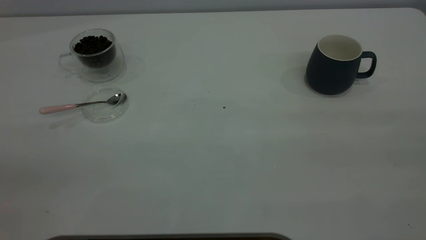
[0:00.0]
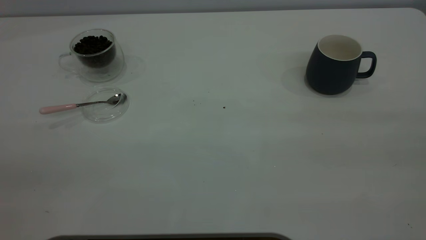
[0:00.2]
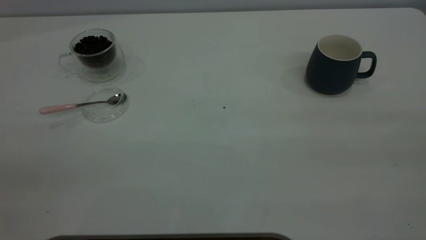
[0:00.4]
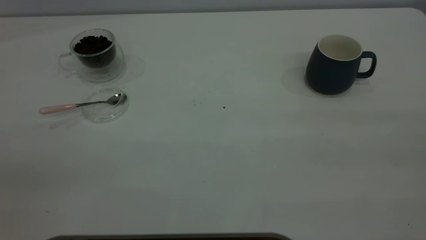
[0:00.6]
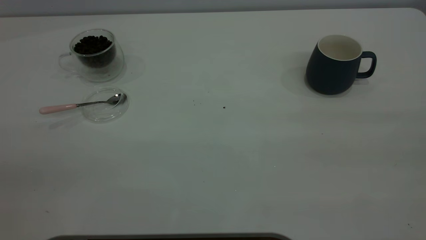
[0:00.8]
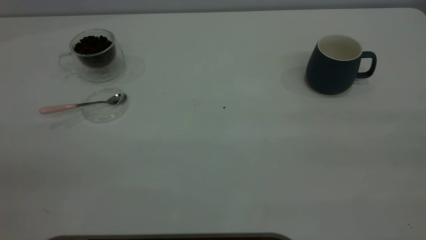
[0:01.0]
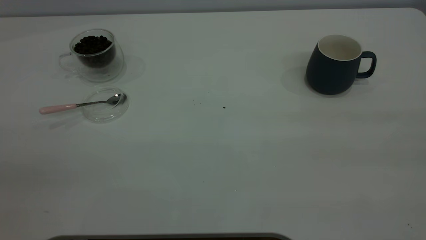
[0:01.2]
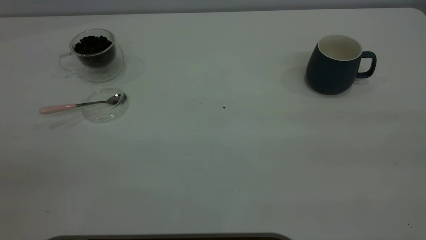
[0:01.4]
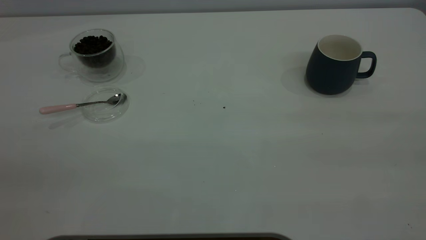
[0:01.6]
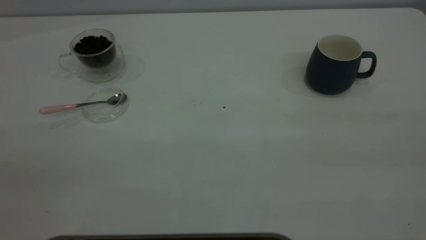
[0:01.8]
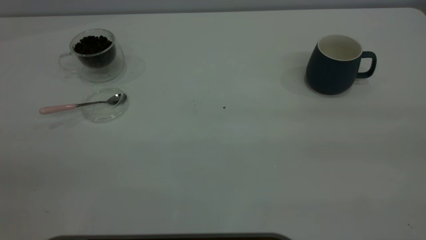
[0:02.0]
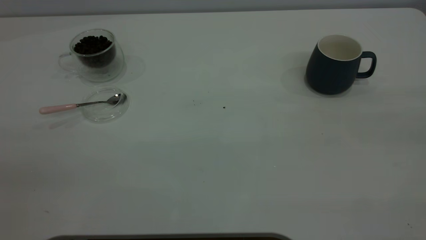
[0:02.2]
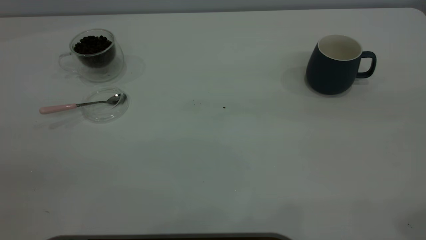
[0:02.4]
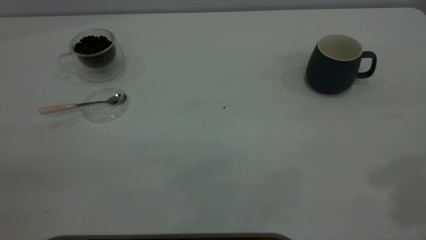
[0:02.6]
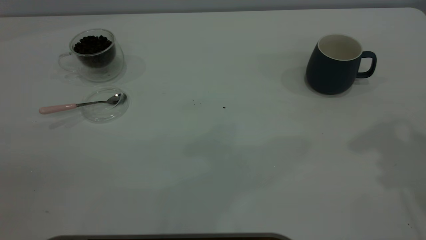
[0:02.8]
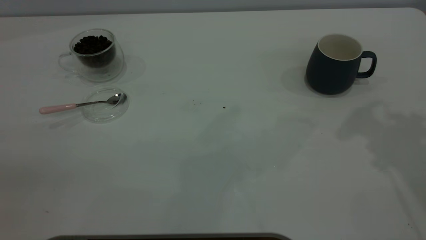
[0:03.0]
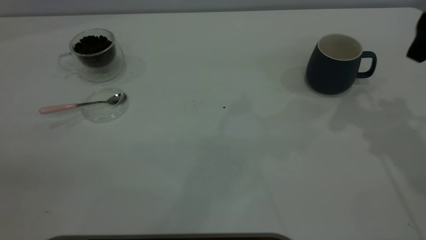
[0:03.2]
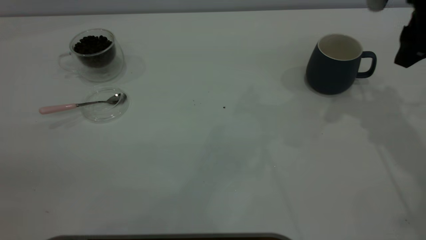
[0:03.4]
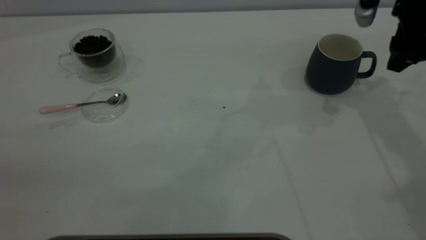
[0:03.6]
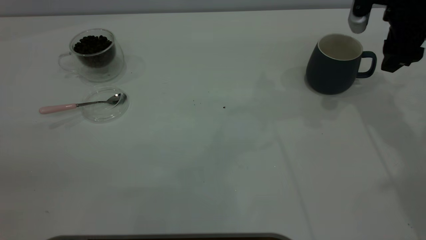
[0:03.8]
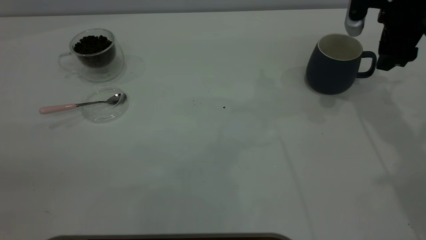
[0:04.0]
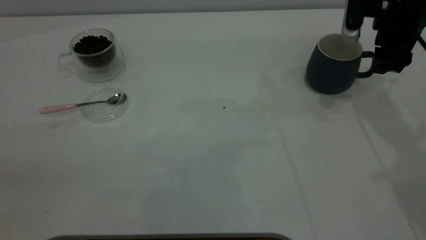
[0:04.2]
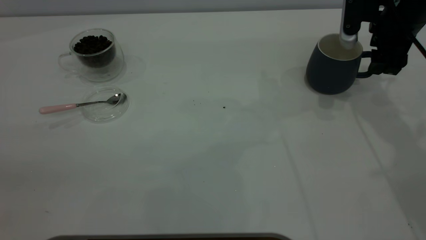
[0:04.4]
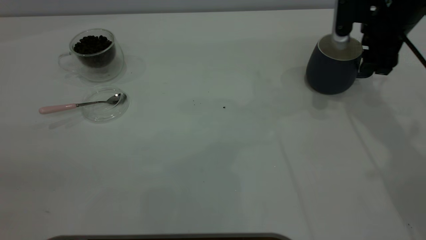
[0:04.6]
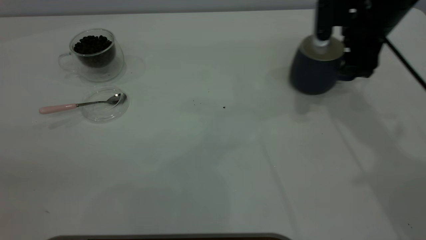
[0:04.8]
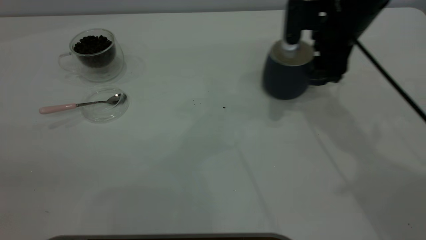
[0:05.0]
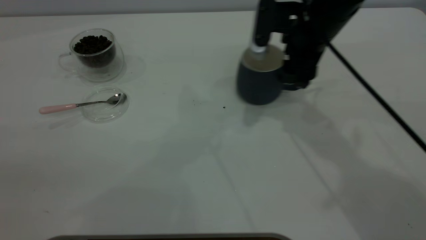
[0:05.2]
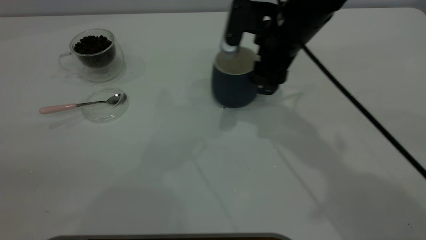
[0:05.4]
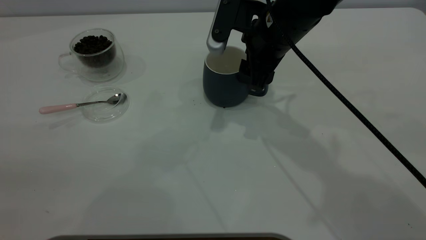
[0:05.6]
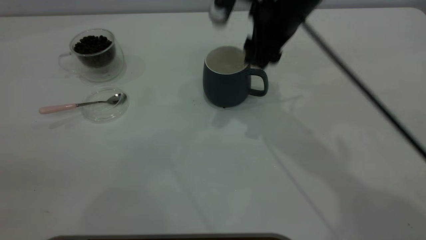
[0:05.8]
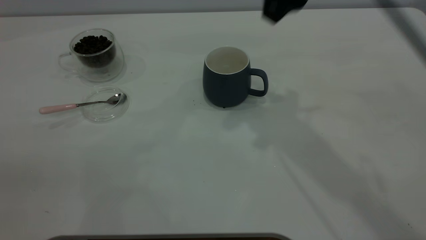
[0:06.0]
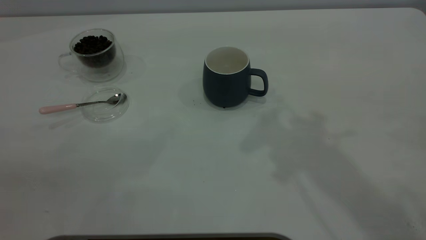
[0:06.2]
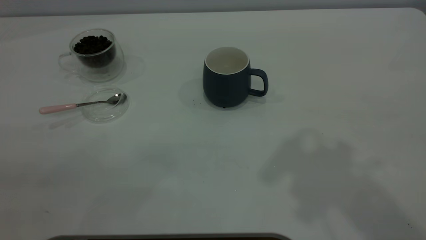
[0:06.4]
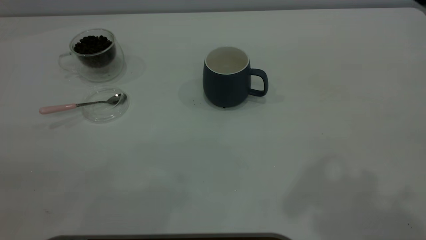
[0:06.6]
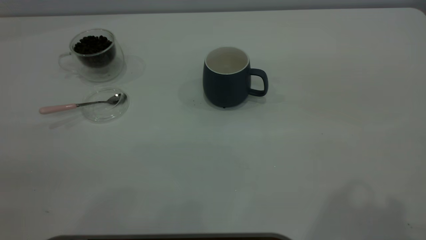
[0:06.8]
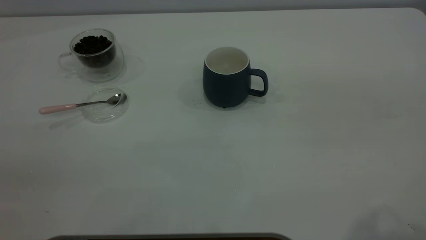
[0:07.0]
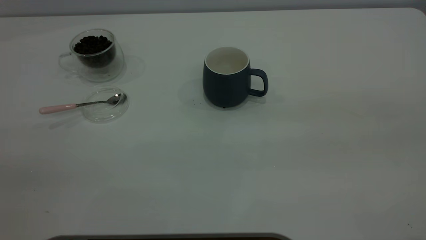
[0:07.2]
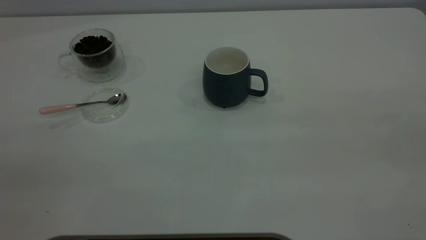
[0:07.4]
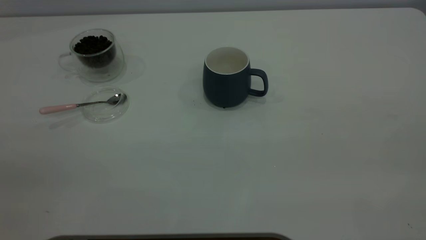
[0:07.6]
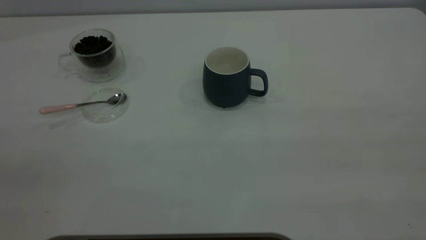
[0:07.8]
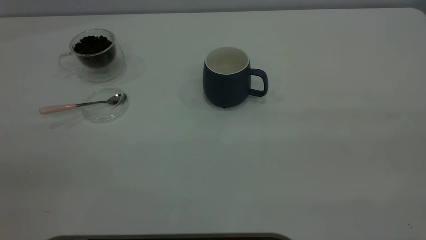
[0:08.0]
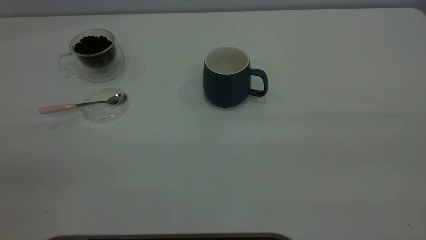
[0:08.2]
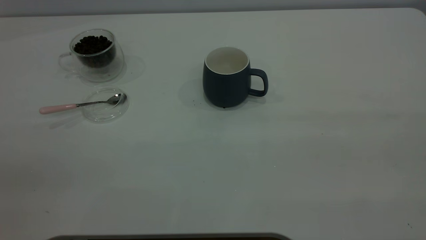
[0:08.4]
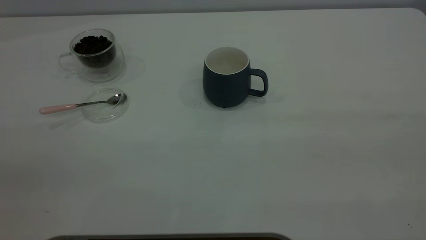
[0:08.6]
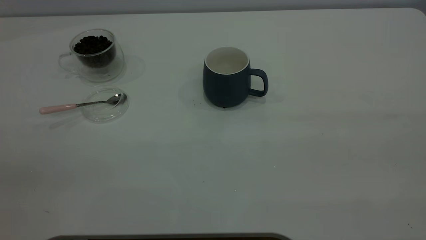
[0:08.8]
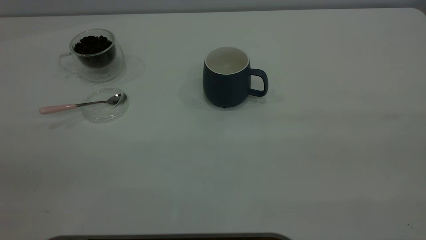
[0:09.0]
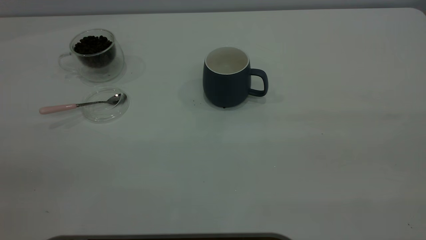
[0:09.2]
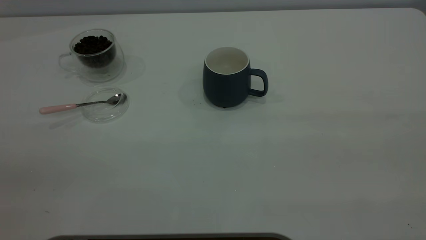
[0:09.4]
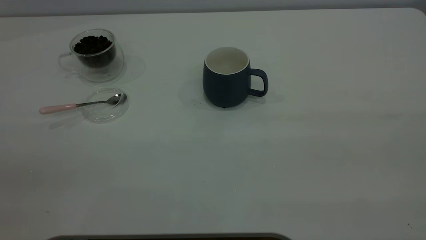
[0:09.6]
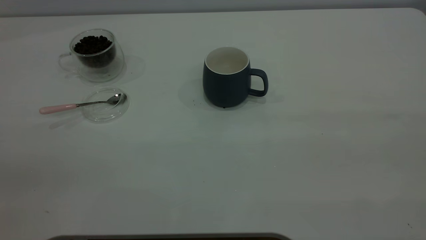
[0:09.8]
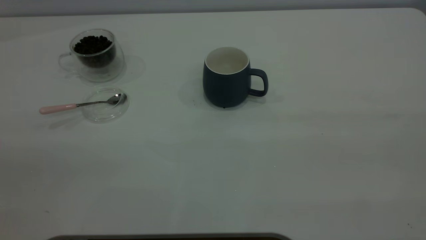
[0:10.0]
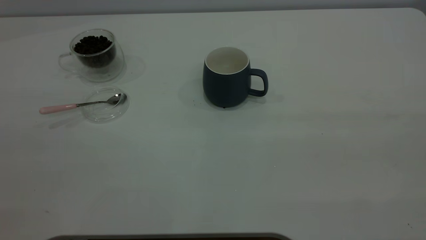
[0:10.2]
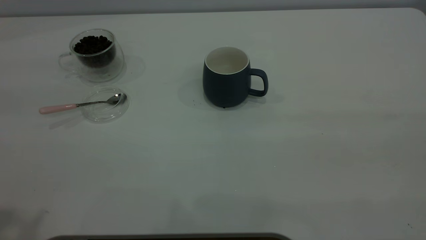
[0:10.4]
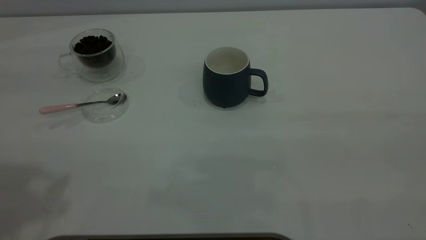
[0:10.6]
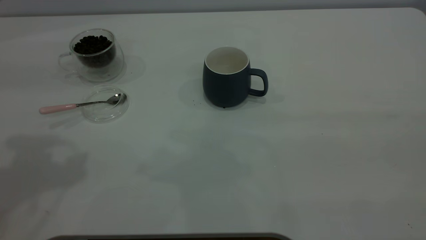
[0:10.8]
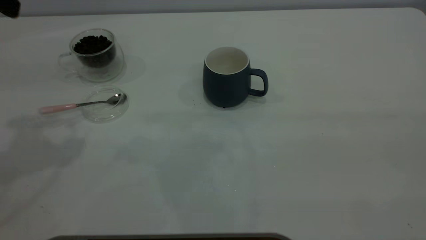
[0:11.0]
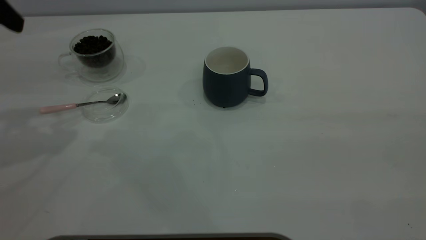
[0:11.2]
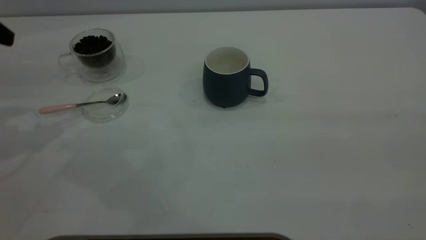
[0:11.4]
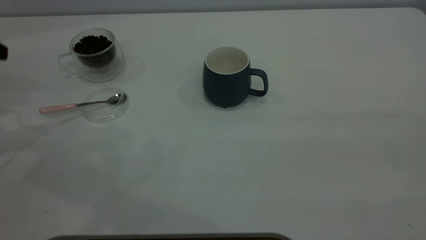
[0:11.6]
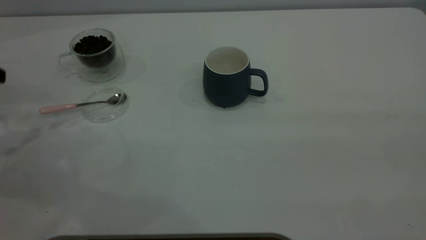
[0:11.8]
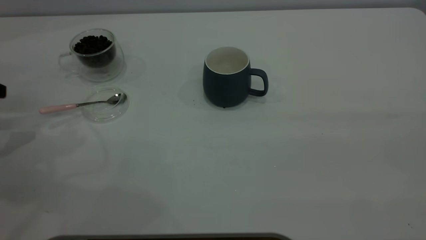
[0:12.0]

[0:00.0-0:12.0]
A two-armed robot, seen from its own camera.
Task of the whole recording: the right gripper place the grey cup in the center of the table, the left gripper take the pink spoon from the cup lid and scoop out the coffee beans from the coffee cup and put them into the grey cup, the left gripper put the spoon back into the cup lid.
Step, 0:00.0 to 0:05.8: Move the cup to the center of view.
0:00.0 to 0:01.6: Neither gripper changes place.
0:03.0 to 0:04.4: The right gripper shifts approximately 20 cm downward and forward.
0:04.4 to 0:06.0: The right gripper moves upward, to the left and backward, roughly 25 cm.
0:06.0 to 0:07.6: The right gripper shifts approximately 35 cm backward and to the right.

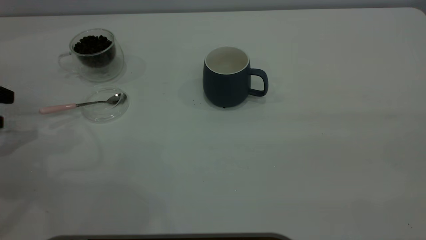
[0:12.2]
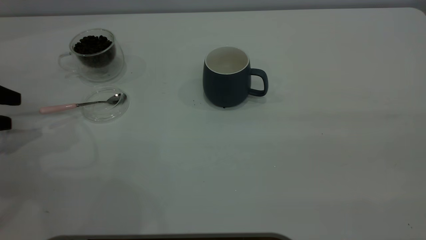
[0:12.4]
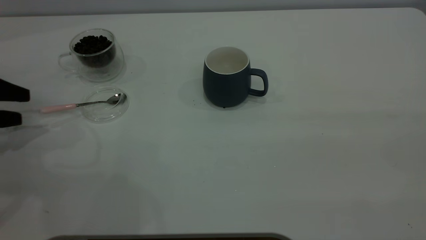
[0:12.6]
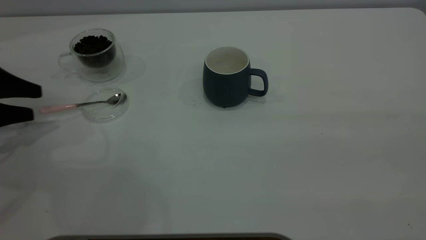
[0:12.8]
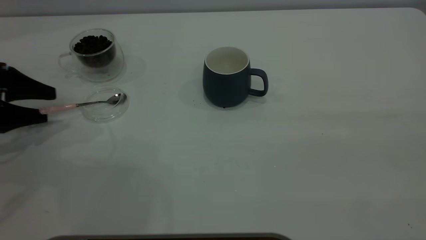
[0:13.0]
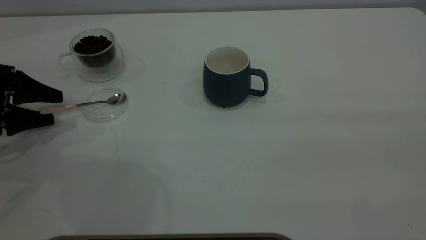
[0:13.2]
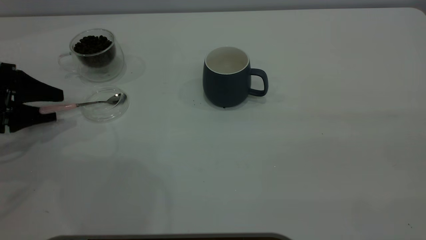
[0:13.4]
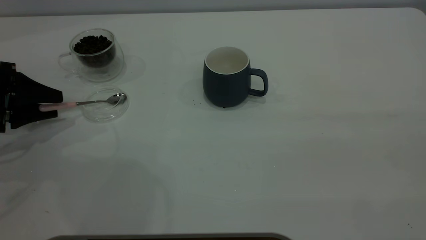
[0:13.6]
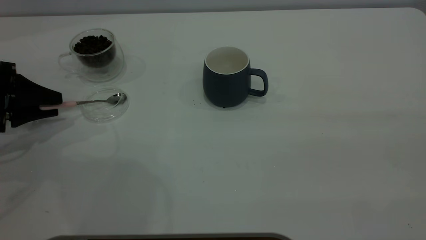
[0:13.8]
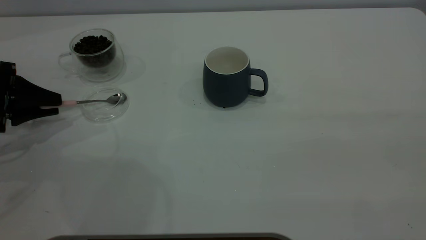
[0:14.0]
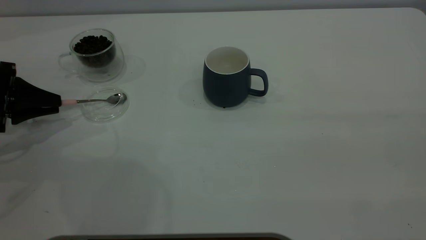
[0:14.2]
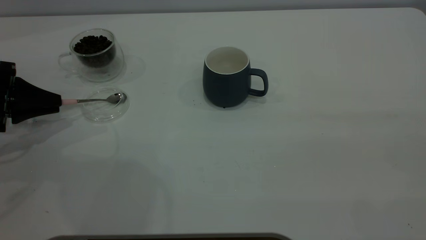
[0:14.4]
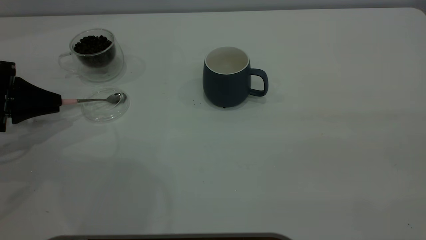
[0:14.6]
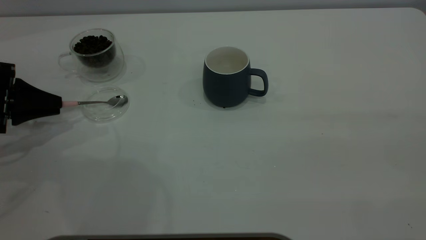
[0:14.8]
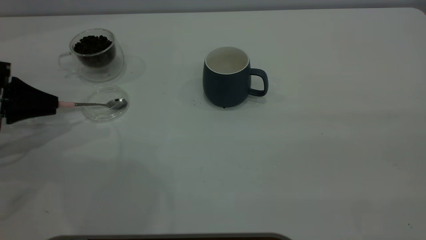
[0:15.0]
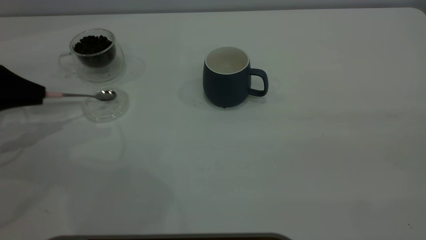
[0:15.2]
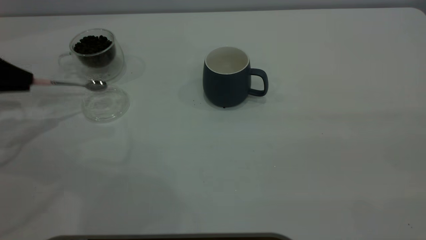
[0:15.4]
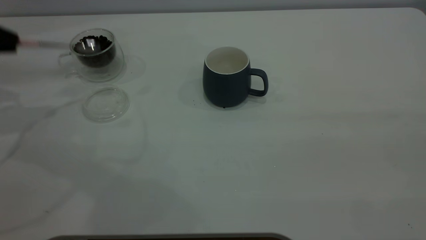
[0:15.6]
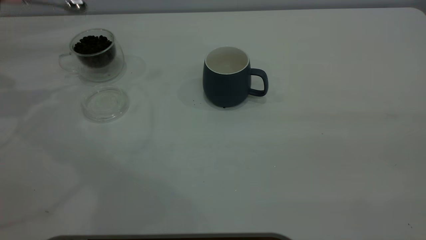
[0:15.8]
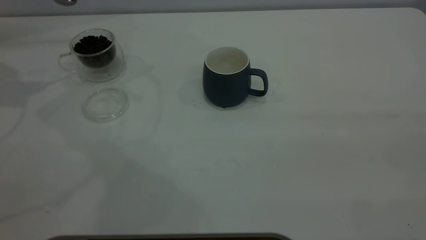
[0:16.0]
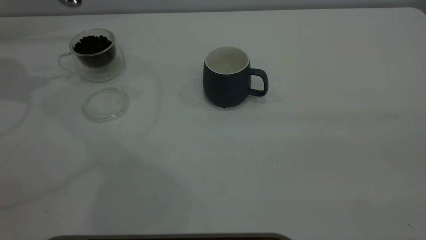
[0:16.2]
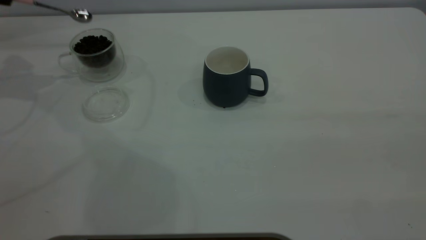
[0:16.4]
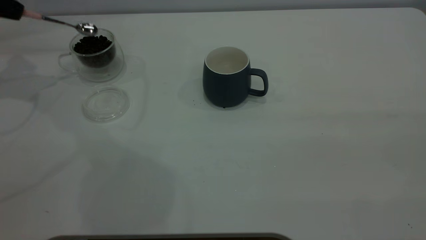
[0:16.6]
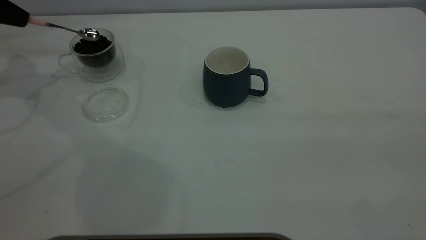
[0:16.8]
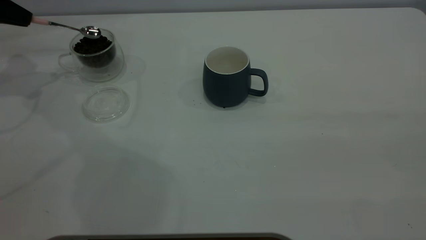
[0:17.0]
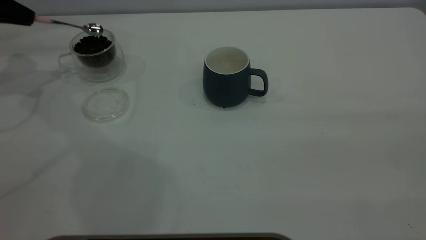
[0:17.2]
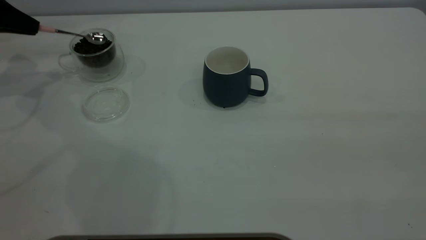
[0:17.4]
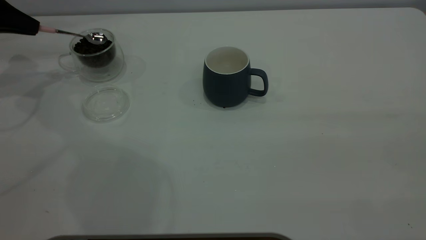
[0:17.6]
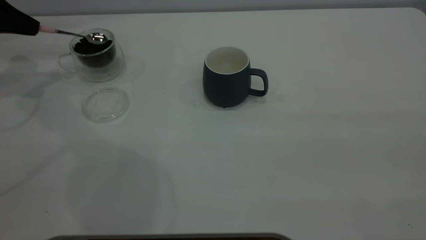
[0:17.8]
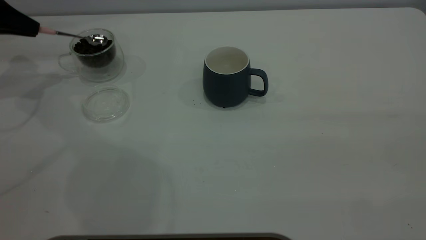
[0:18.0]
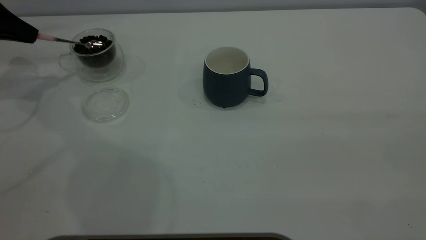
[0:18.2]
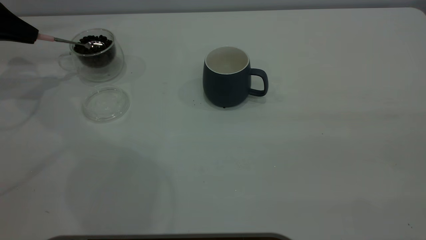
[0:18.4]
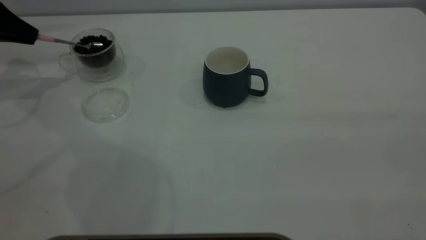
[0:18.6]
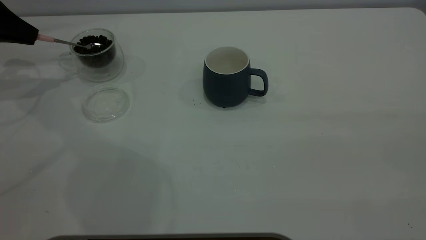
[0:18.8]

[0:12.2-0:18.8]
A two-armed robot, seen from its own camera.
Task of the whole recording: the right gripper place the grey cup in the center of the table, the left gripper take the pink spoon from the cup lid and scoop out the coffee beans from the coffee cup and put them into the grey cup, the left gripper put the spoon back into the cup lid.
Step, 0:12.2 to 0:15.4: Pick up the spoon.
0:12.2 to 0:13.8: The left gripper moves to the right, some 5 cm, and closes up.
0:13.8 to 0:15.4: The left gripper moves upward, about 5 cm, and closes.
0:15.4 to 0:17.2: The left gripper goes approximately 15 cm forward, and reaches some 15 cm upward, then returns.
0:17.2 to 0:18.8: The grippers make only small movements.
